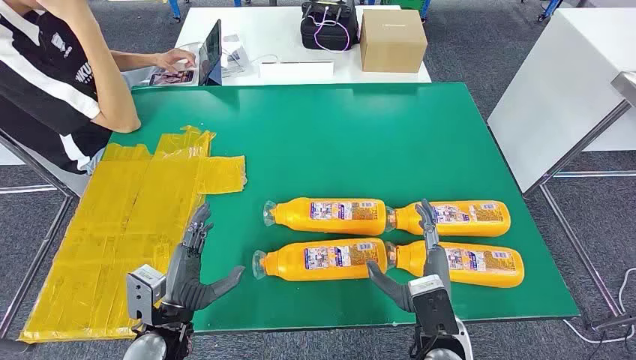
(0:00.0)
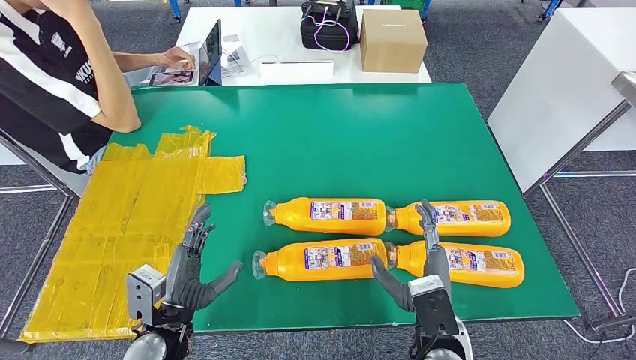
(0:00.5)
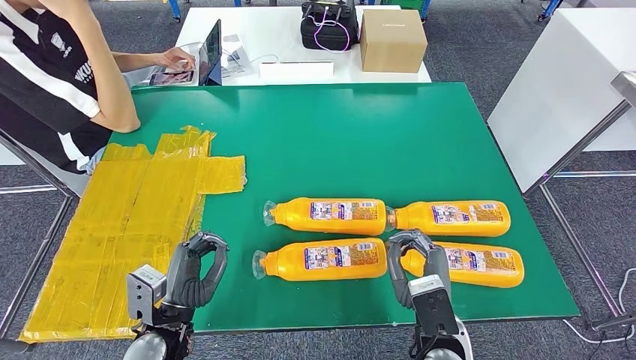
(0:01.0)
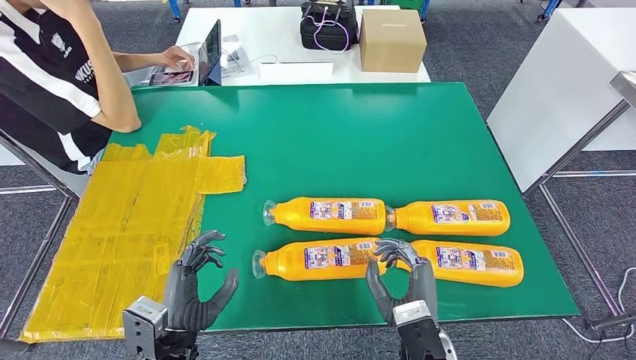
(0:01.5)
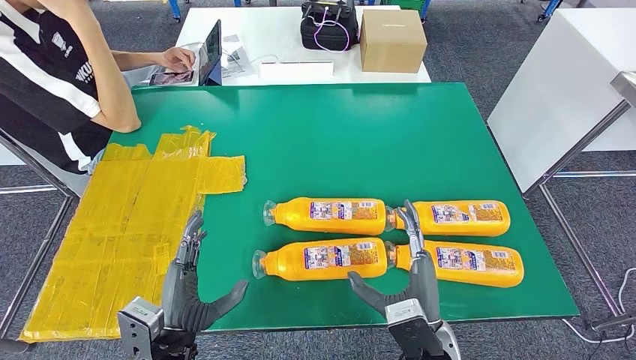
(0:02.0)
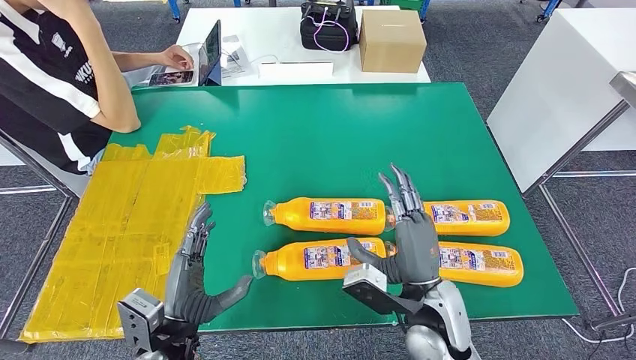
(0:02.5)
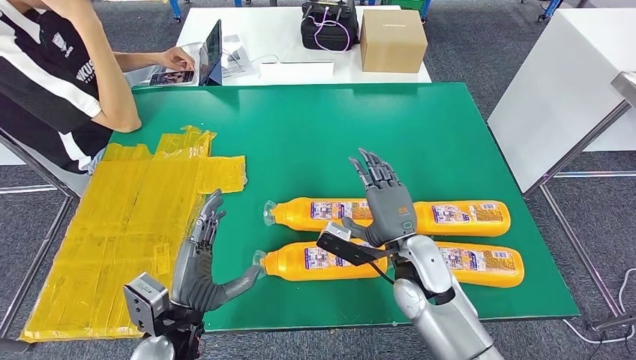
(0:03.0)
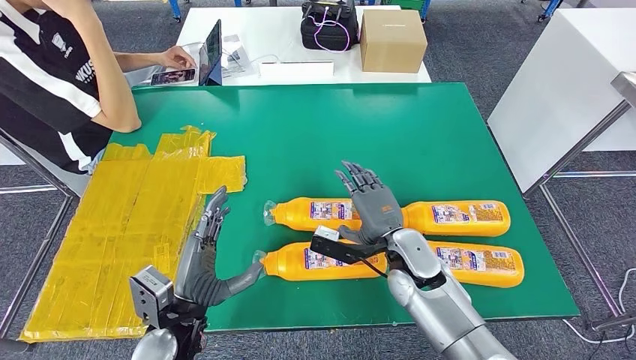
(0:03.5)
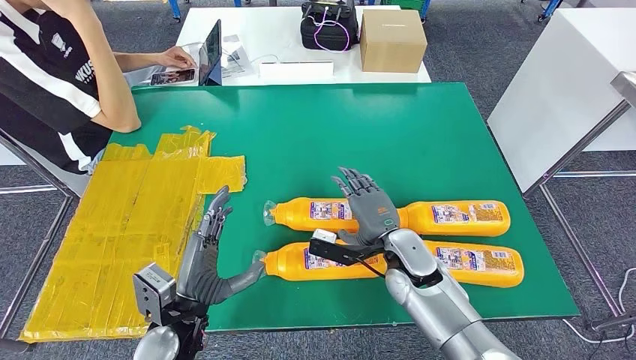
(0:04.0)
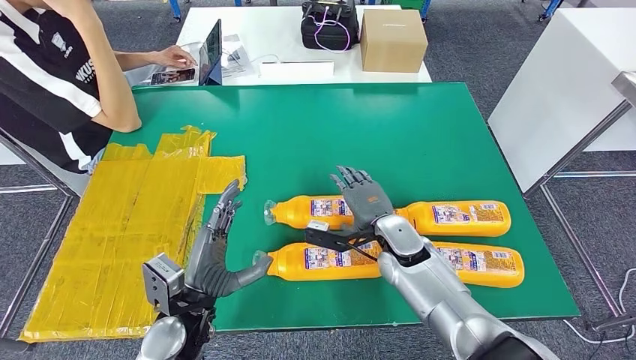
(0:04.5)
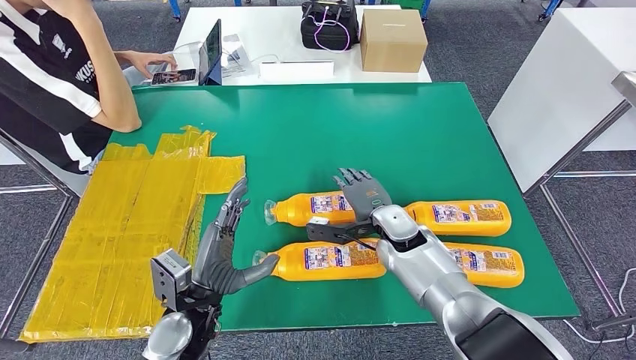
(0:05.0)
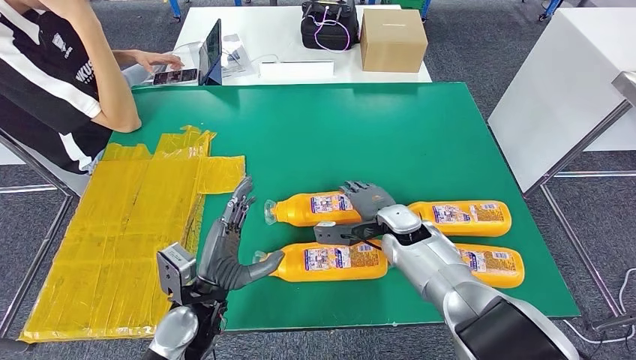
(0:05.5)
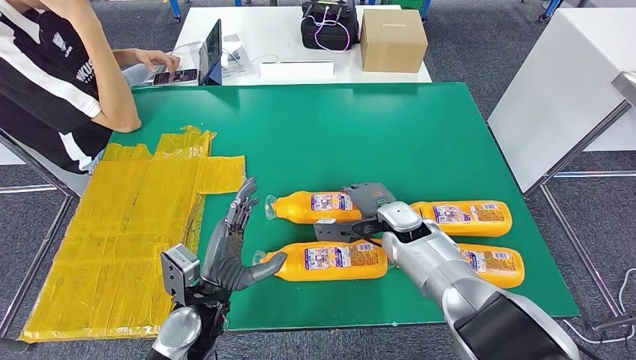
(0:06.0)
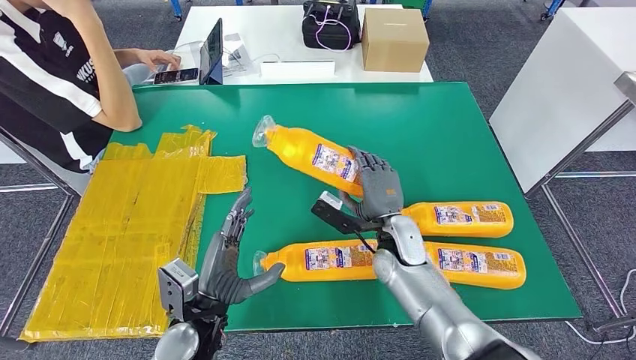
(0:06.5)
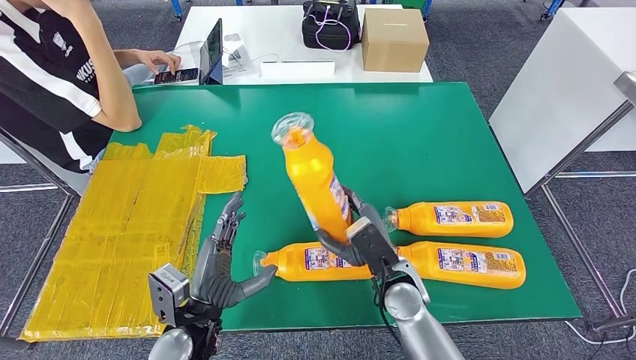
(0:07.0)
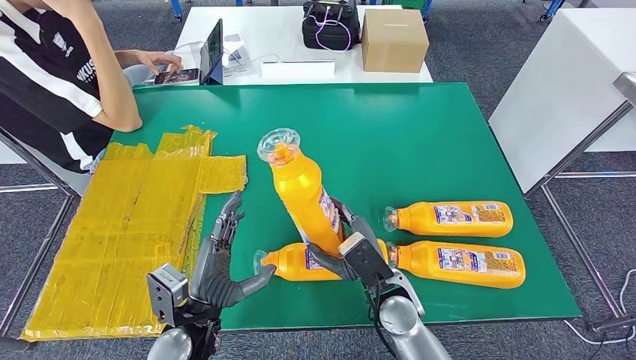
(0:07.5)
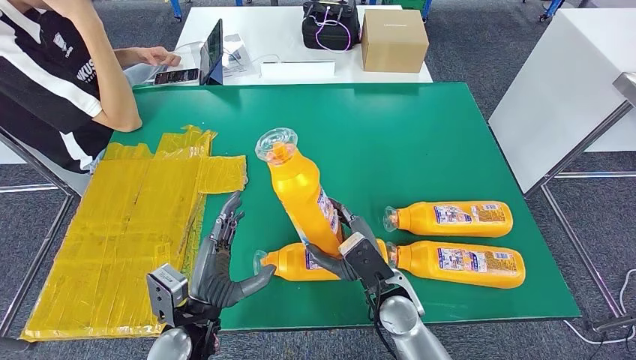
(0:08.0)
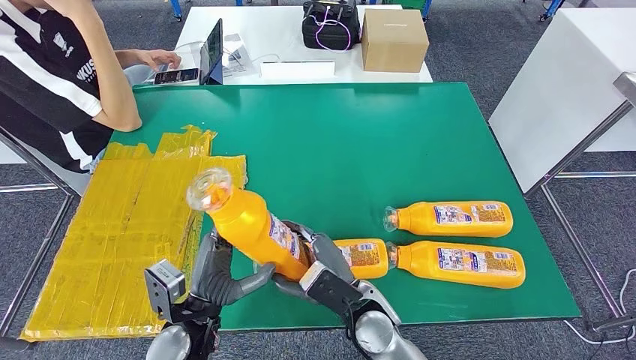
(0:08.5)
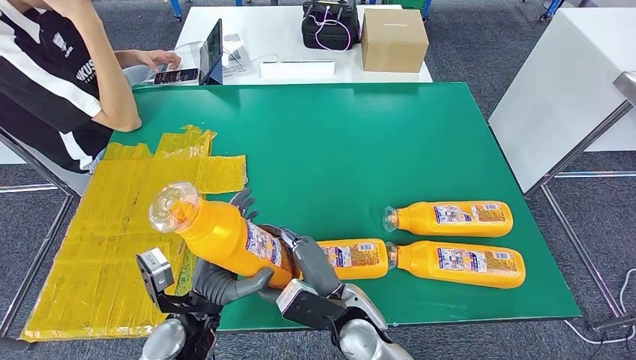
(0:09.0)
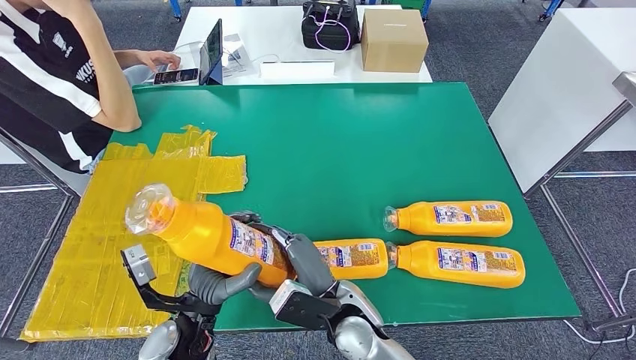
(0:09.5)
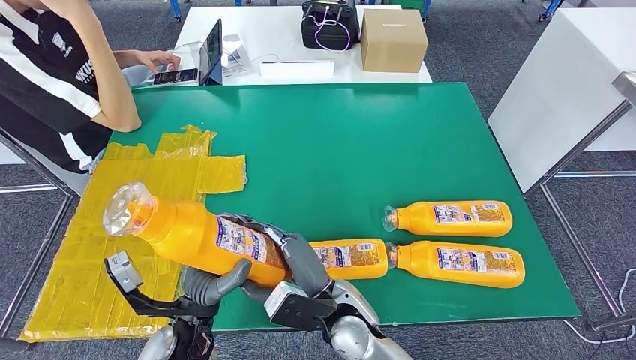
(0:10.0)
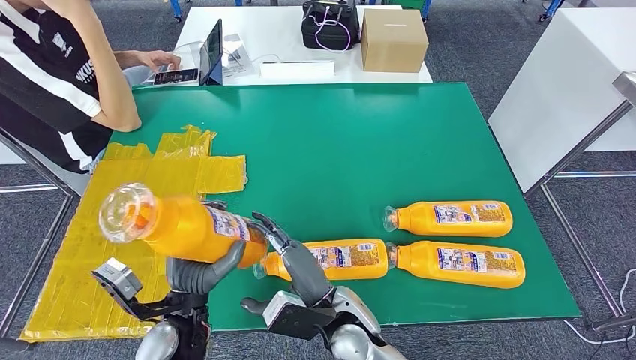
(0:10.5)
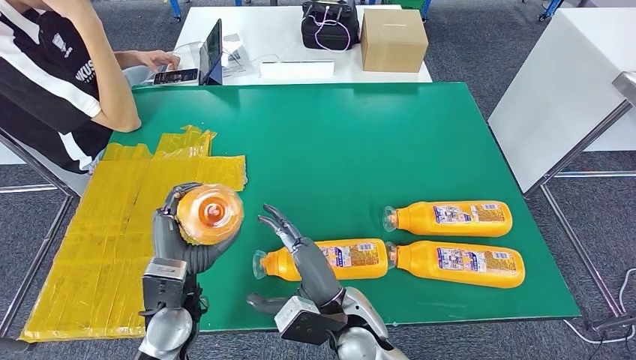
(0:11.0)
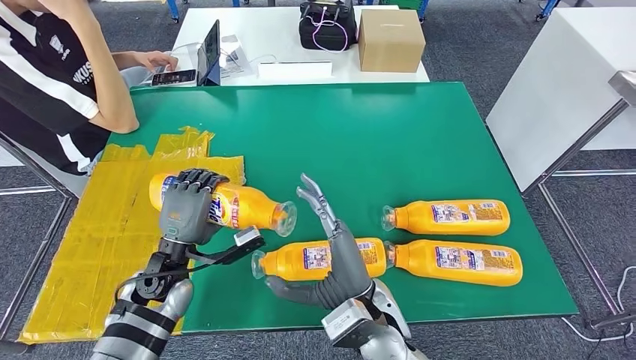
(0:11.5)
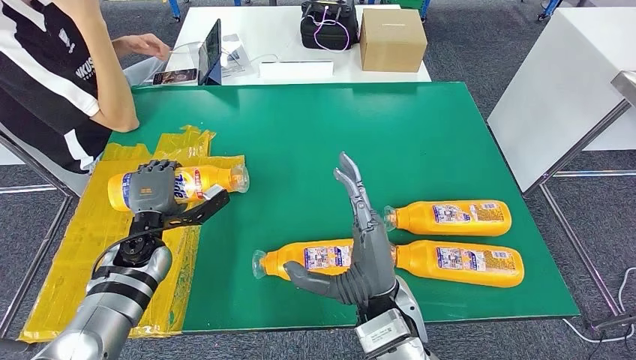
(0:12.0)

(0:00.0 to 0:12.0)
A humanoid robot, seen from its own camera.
Step, 0:00.0 - 0:07.5: Take the bottle from the table.
0:02.0 - 0:04.0: The right hand heads forward, covering approximately 15 cm.
0:04.0 - 0:06.0: The right hand moves forward, about 5 cm.
0:06.0 - 0:08.0: The right hand shifts some 15 cm backward.
0:08.0 - 0:10.0: The right hand travels to the left by roughly 10 cm.

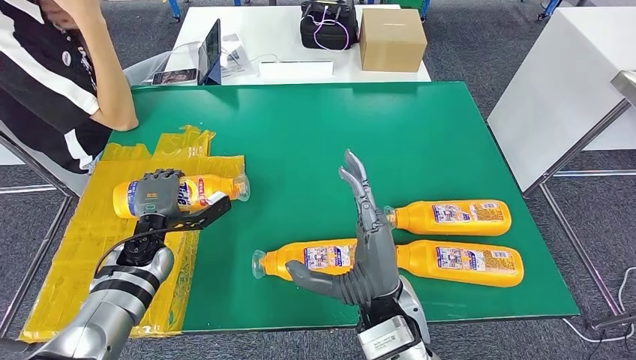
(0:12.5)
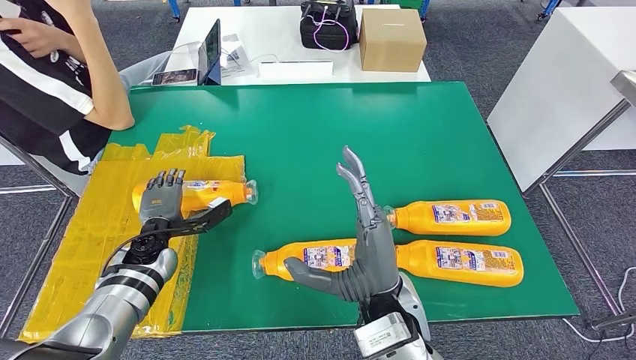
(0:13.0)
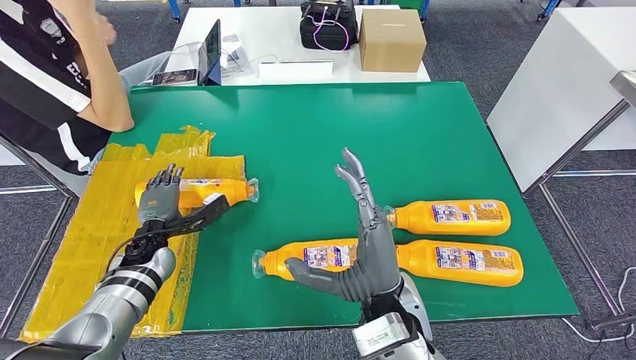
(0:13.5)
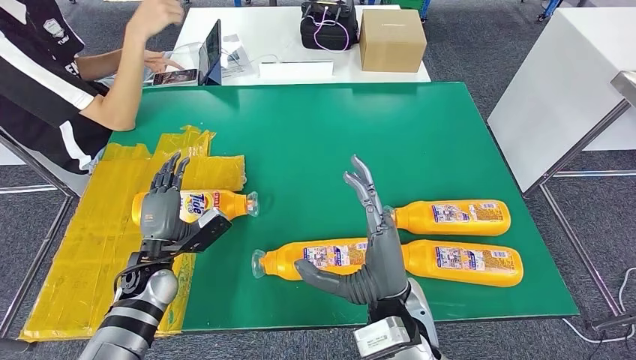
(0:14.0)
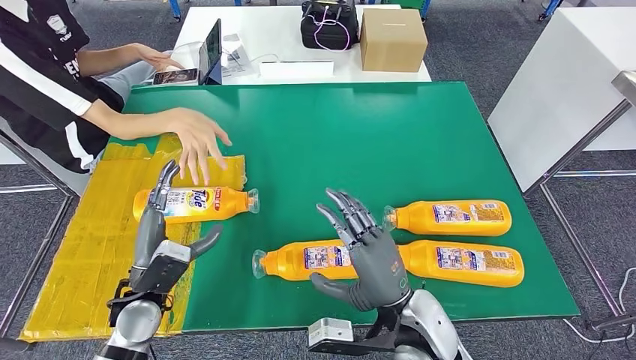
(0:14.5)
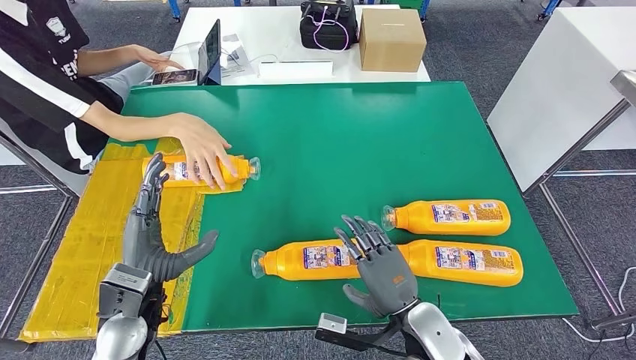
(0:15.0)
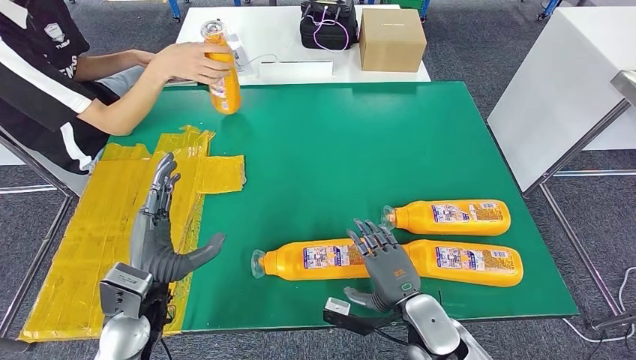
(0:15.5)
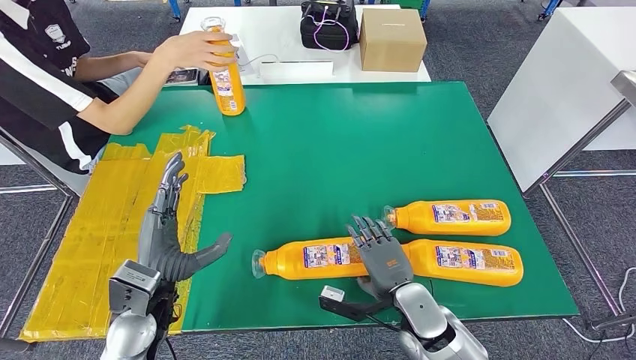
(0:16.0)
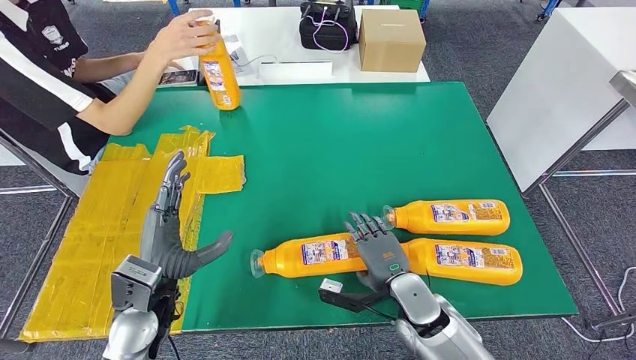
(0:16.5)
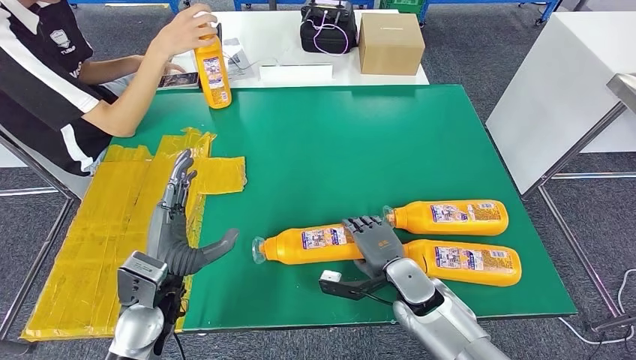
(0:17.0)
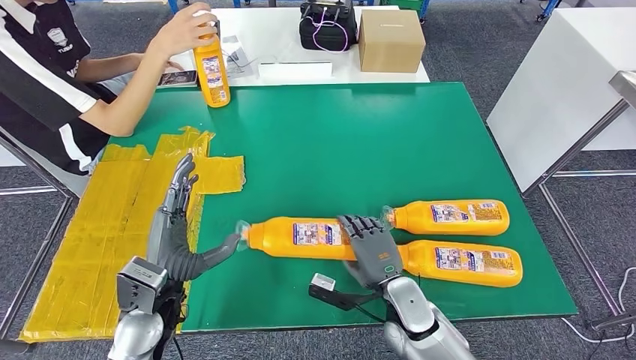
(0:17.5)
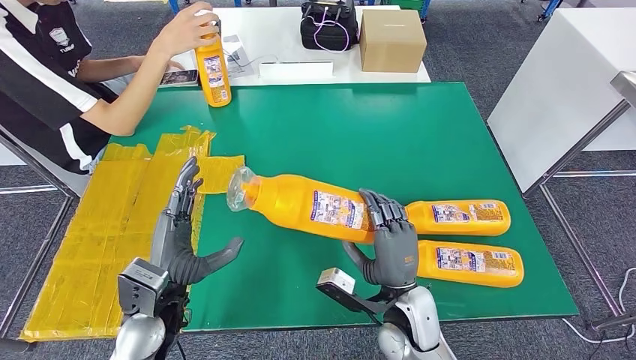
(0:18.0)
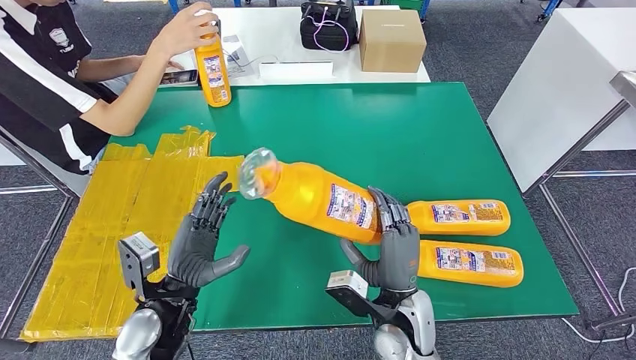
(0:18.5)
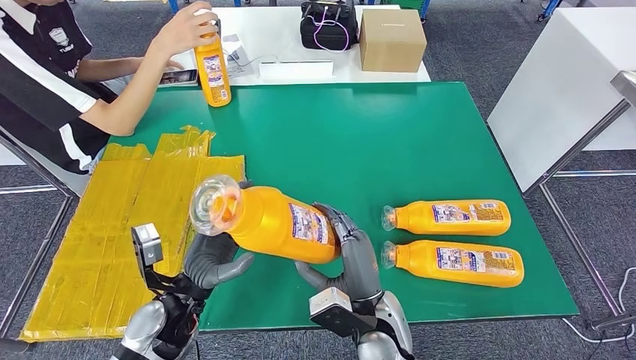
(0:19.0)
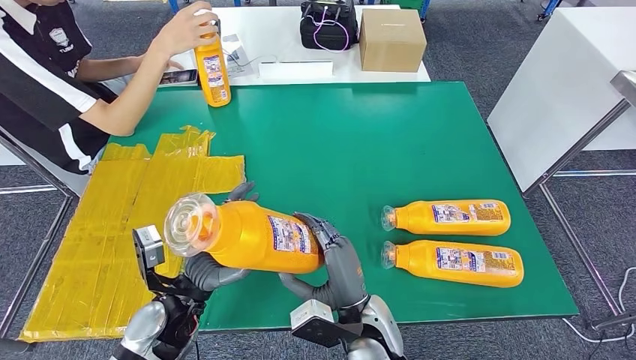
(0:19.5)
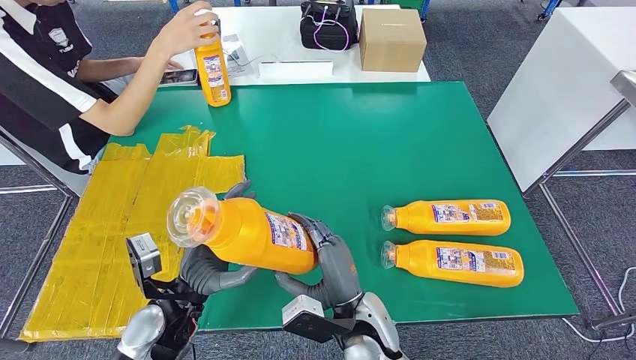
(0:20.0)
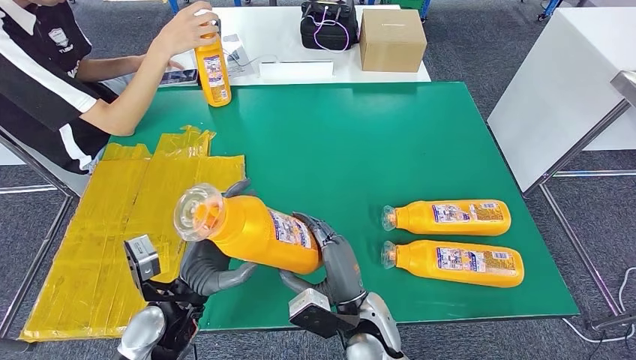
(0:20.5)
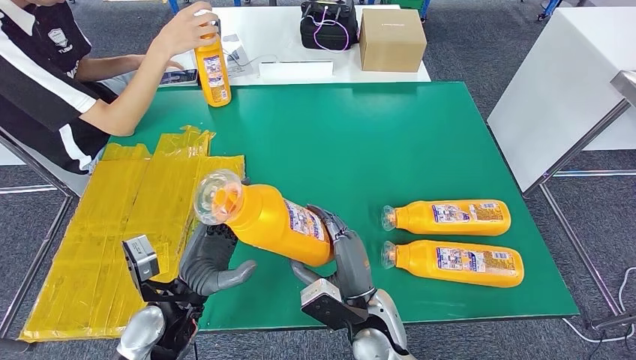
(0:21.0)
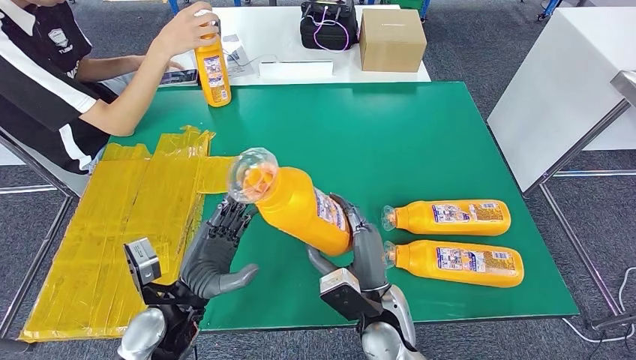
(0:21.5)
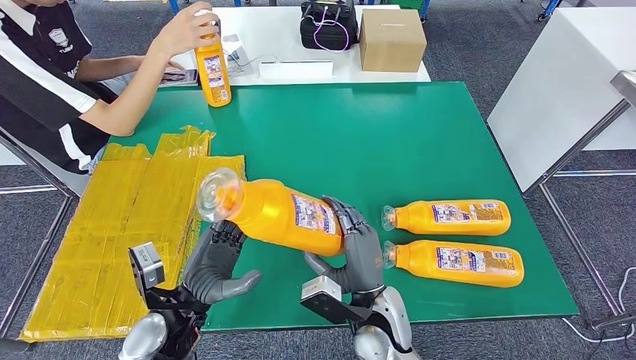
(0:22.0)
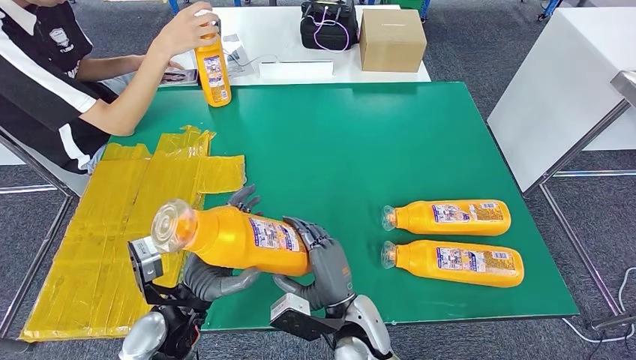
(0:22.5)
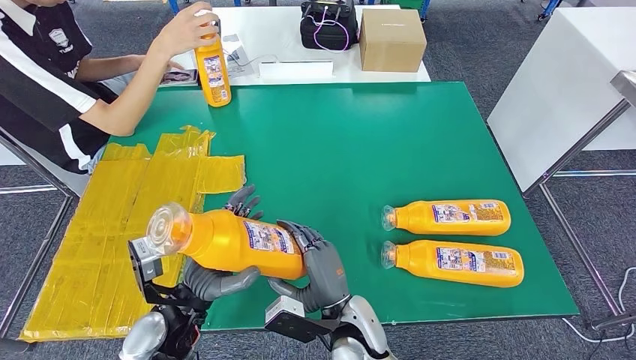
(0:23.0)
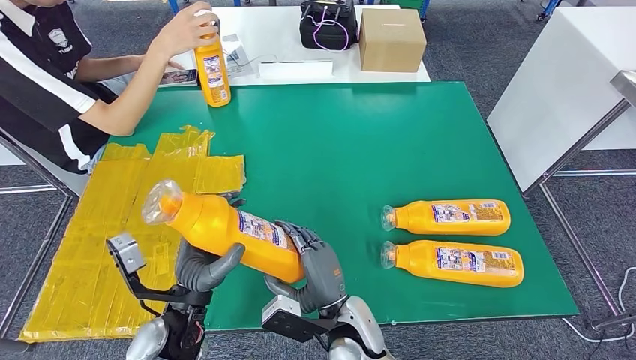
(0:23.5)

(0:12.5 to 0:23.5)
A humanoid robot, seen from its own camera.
Step, 0:13.5 - 0:20.5: Pick up the bottle from the table.
0:12.5 - 0:14.5: The left hand moves backward, some 10 cm; the right hand shifts by some 5 cm.
0:14.5 - 0:16.0: The left hand ends up some 5 cm from where it was; the right hand travels downward by roughly 10 cm.
0:18.0 - 0:20.0: The right hand moves to the left, approximately 5 cm.
0:20.0 - 0:21.5: The hands stay close to where they were, moving slightly.
0:21.5 - 0:23.5: The right hand shifts about 5 cm to the left.
